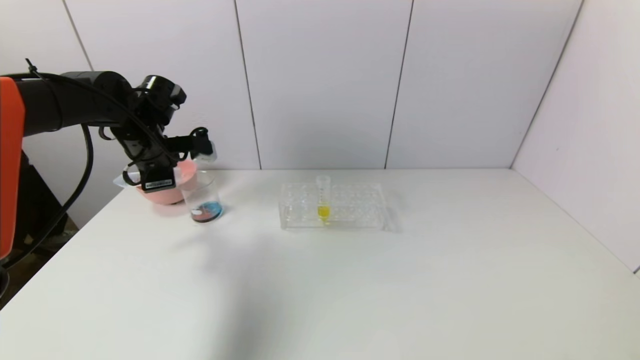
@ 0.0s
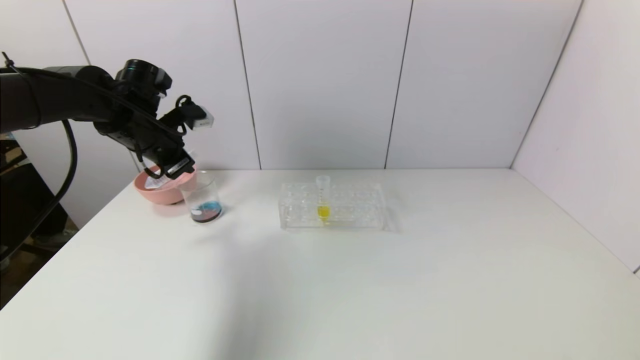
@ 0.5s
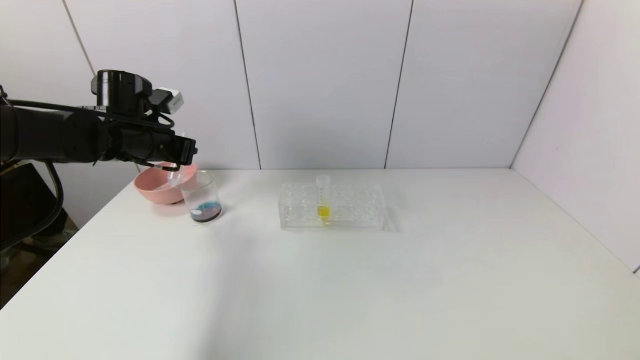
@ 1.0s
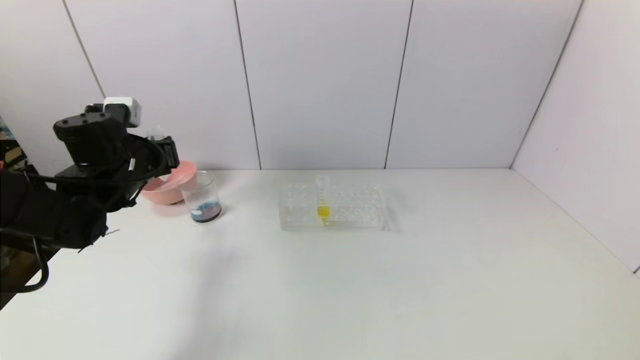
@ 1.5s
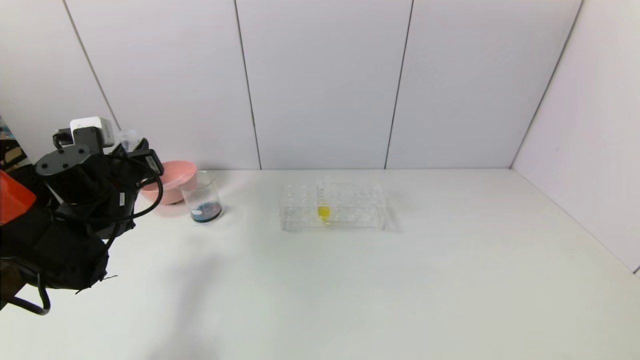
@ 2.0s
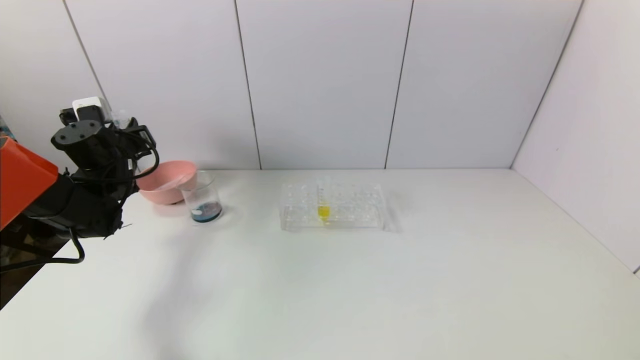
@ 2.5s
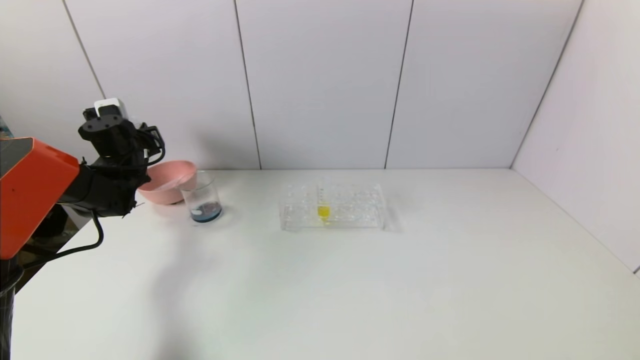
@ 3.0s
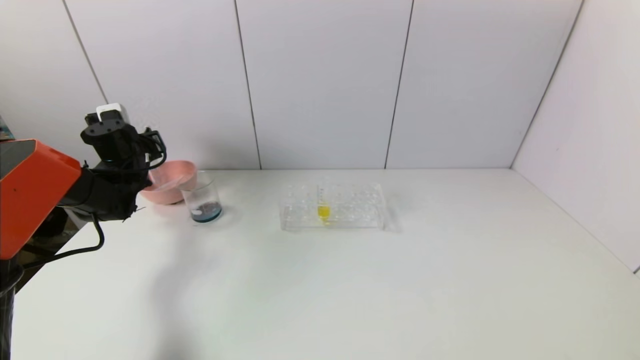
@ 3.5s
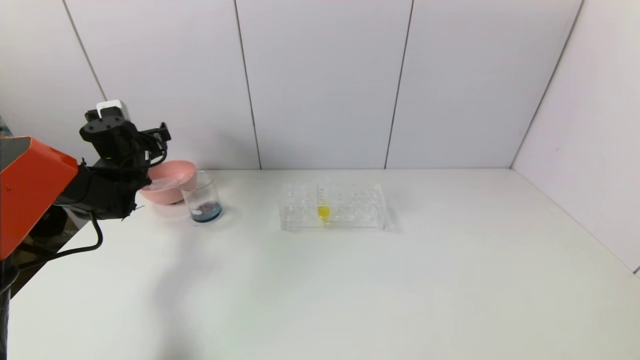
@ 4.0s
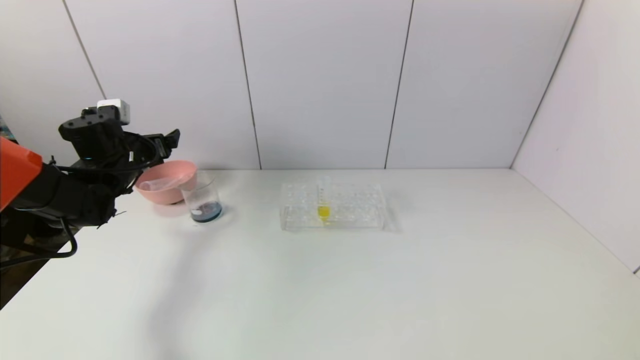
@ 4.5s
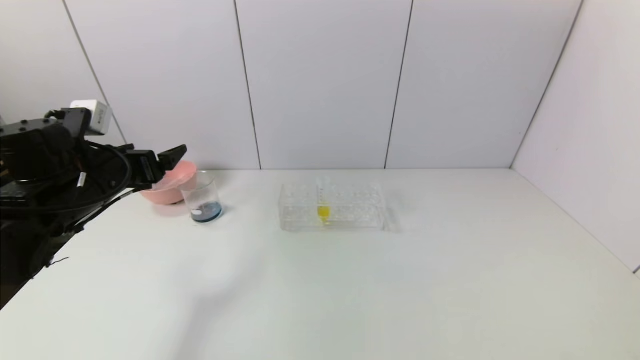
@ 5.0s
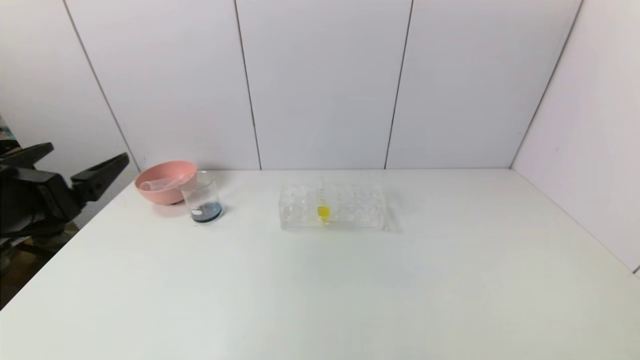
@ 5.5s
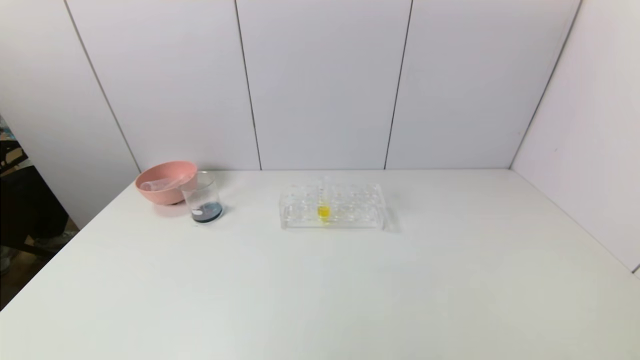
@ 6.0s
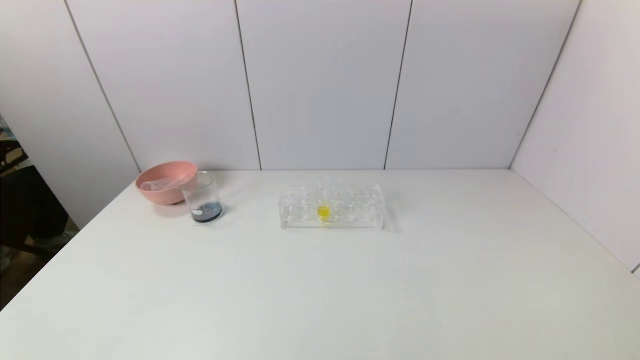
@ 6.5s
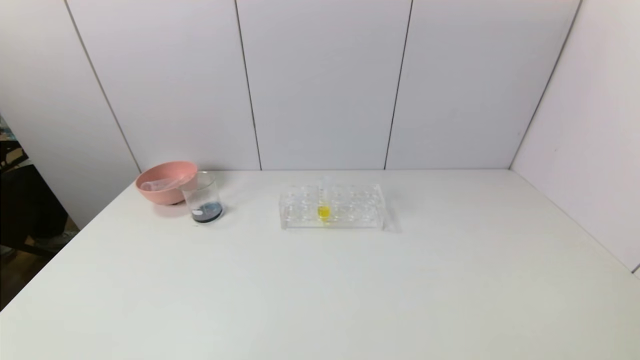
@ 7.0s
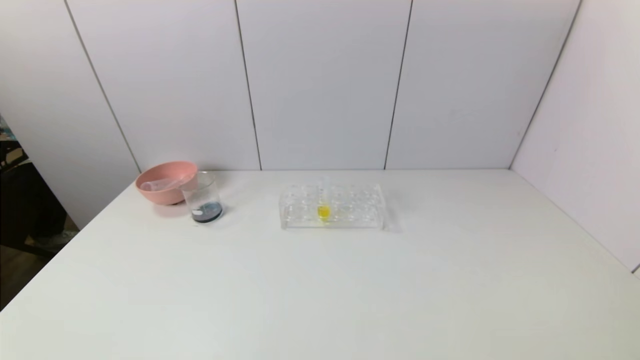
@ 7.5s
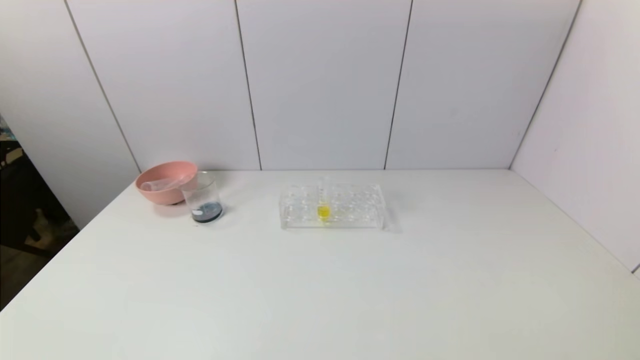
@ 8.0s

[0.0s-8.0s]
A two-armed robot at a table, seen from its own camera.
Task of the whole recording: pick up the test tube with red pigment and the test tube with blue pigment by grippers and pour them into the container.
Step, 0.5s to 3.5s: Place the test tube into the bowl with the left gripper.
0.0s to 2.0s: The left gripper goes about 10 cm downward and backward.
2.0s to 4.0s: The left gripper goes some 10 cm forward, and opens its fingers.
4.0s to 6.0s: The left gripper heads backward, covering approximately 50 cm.
